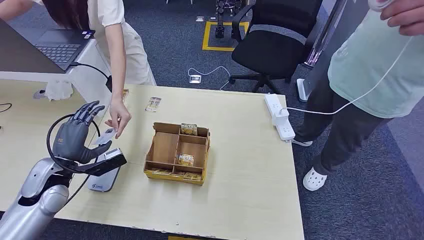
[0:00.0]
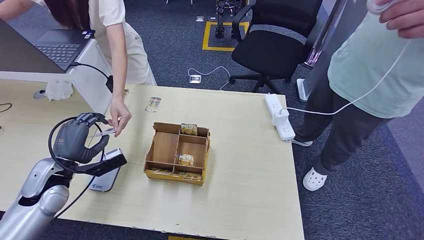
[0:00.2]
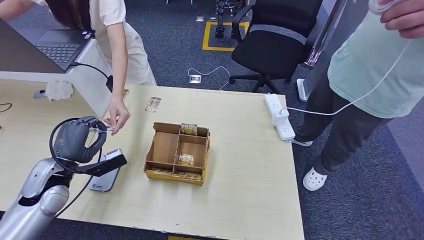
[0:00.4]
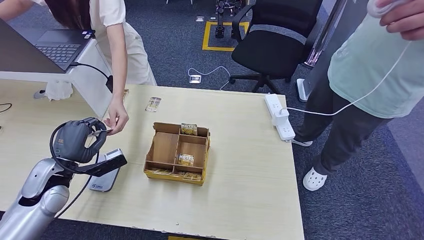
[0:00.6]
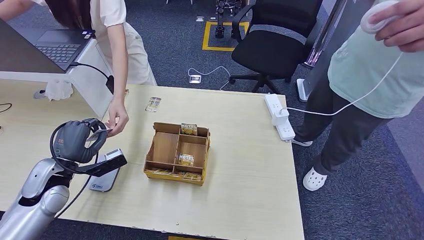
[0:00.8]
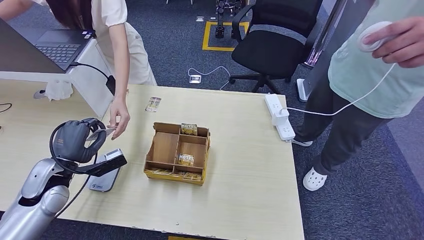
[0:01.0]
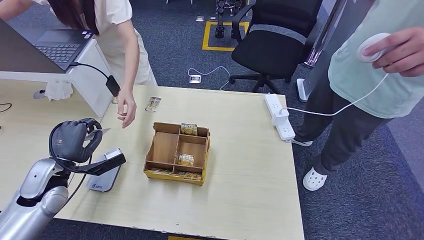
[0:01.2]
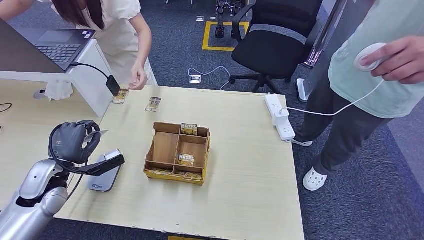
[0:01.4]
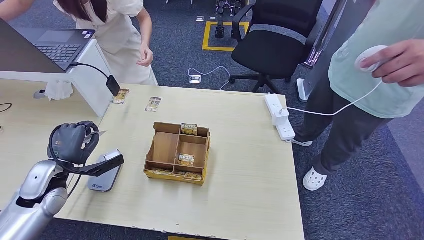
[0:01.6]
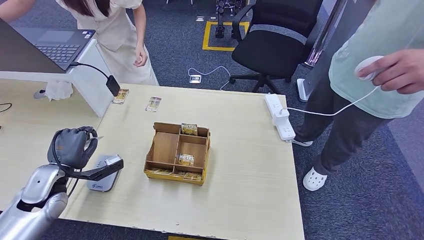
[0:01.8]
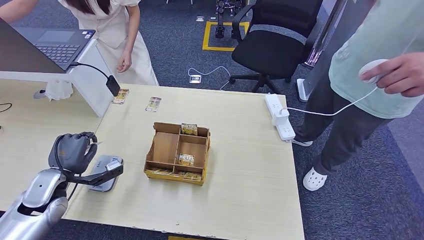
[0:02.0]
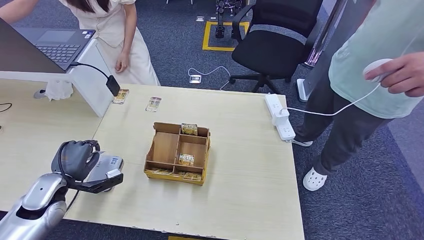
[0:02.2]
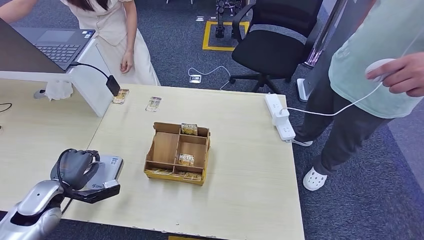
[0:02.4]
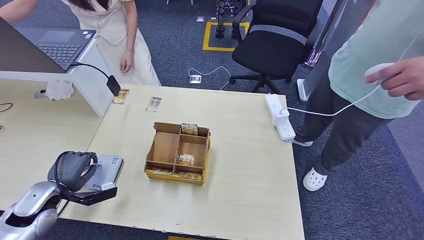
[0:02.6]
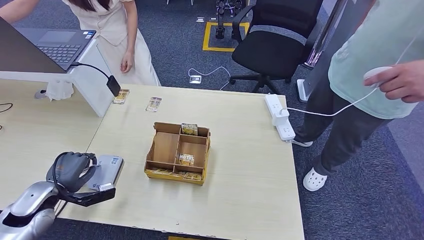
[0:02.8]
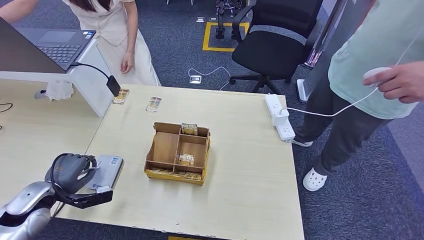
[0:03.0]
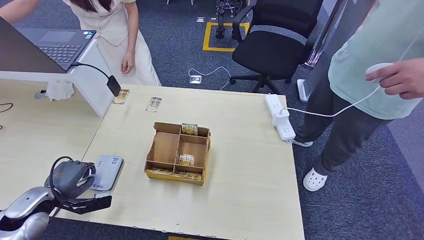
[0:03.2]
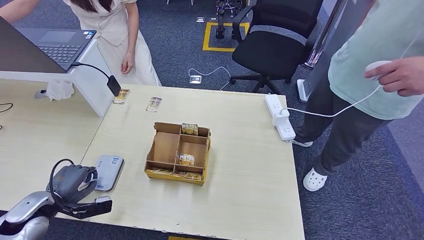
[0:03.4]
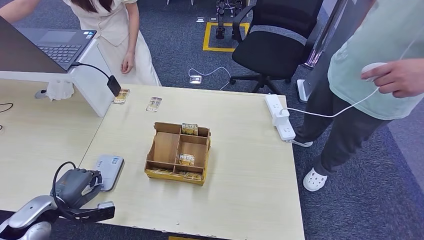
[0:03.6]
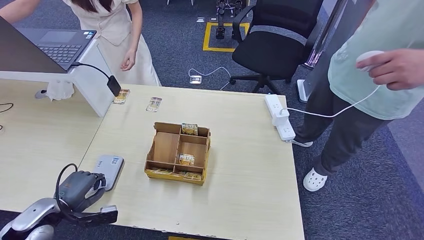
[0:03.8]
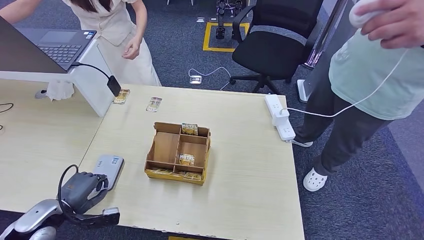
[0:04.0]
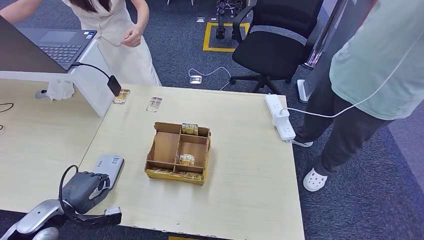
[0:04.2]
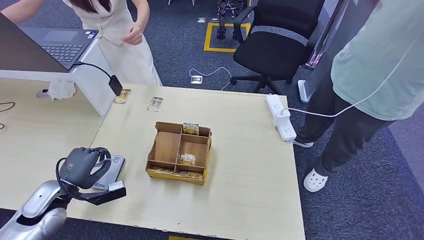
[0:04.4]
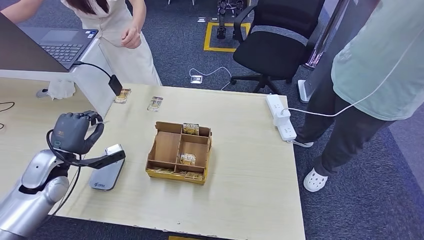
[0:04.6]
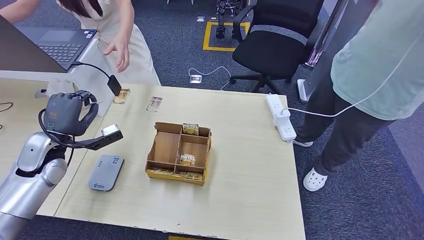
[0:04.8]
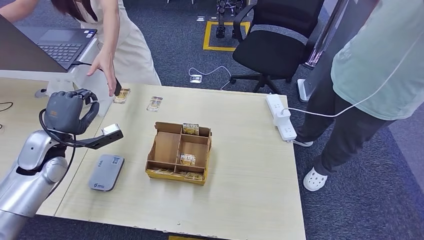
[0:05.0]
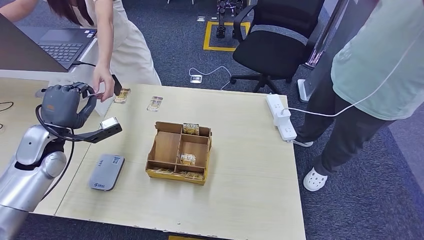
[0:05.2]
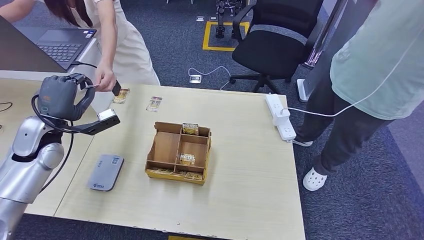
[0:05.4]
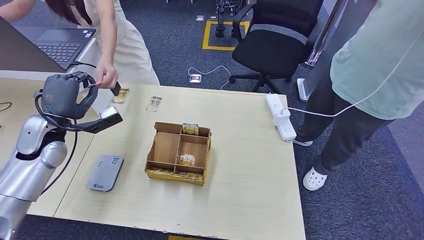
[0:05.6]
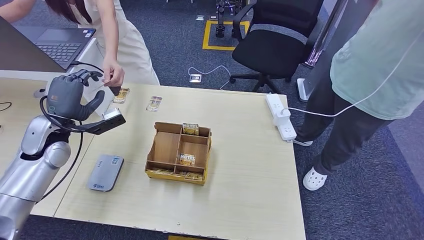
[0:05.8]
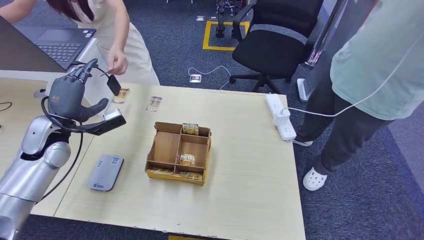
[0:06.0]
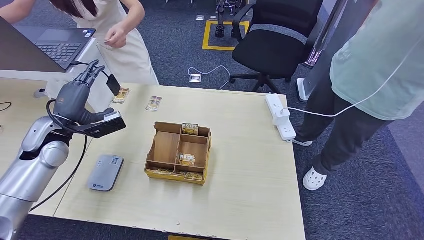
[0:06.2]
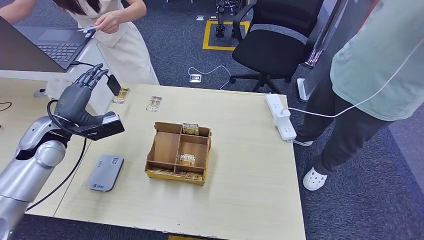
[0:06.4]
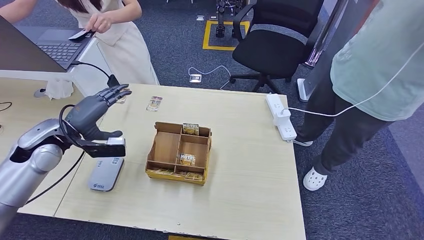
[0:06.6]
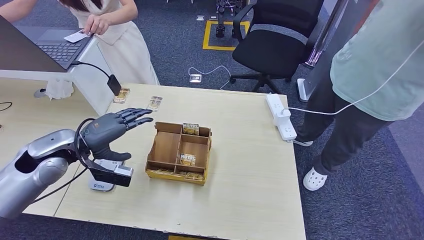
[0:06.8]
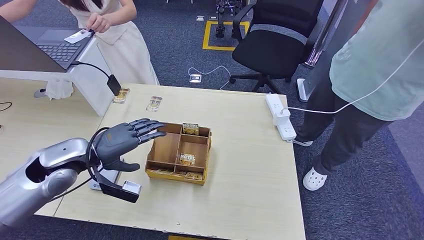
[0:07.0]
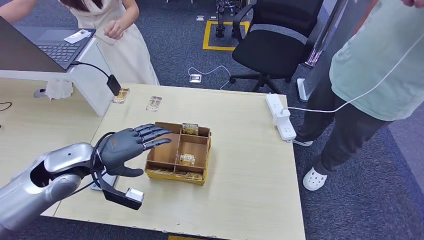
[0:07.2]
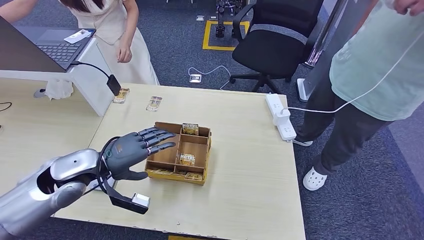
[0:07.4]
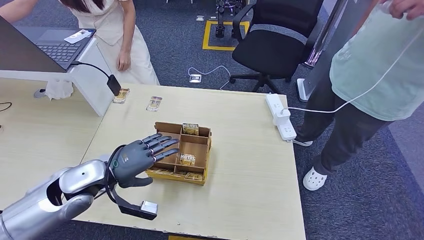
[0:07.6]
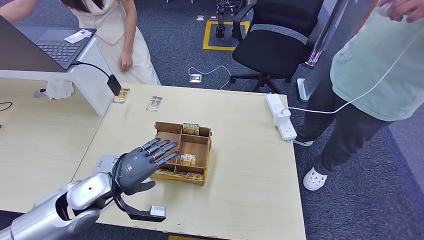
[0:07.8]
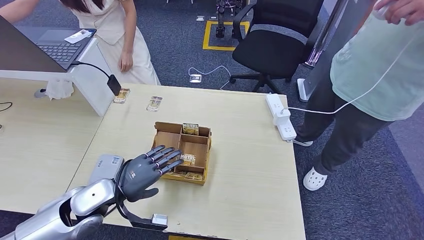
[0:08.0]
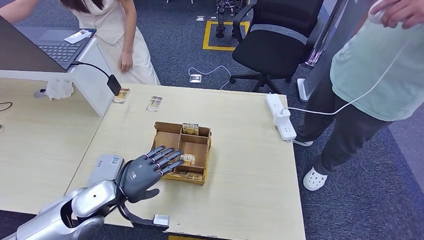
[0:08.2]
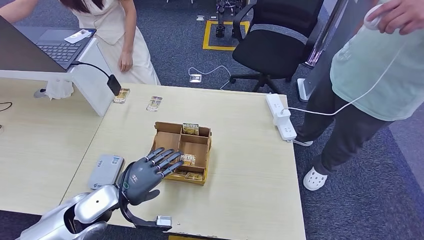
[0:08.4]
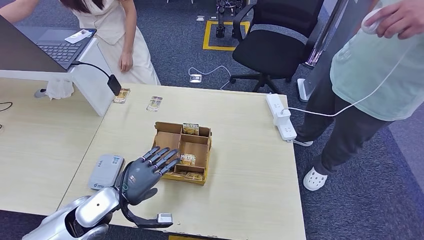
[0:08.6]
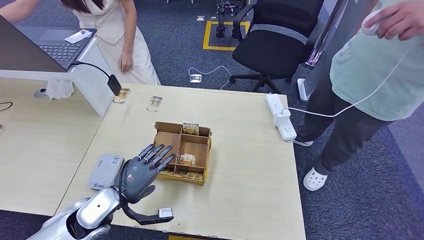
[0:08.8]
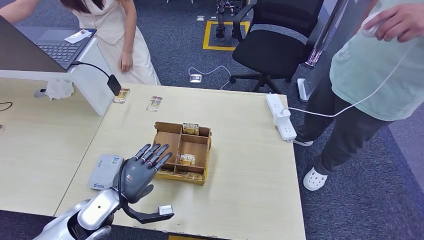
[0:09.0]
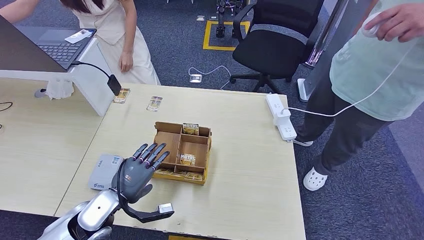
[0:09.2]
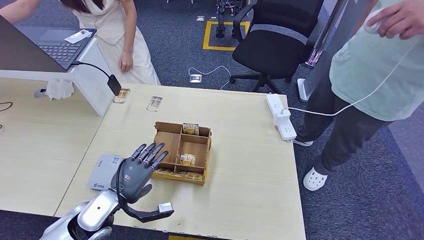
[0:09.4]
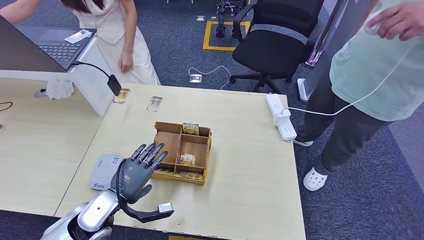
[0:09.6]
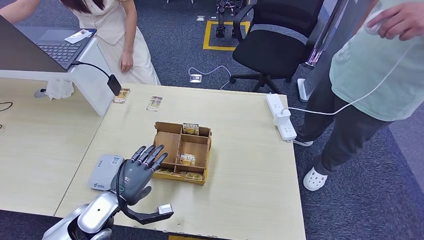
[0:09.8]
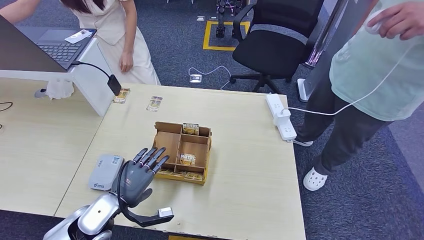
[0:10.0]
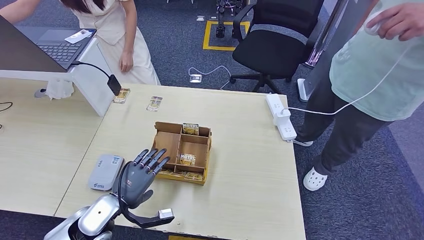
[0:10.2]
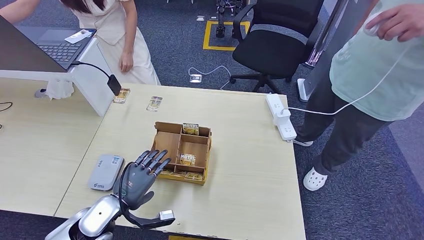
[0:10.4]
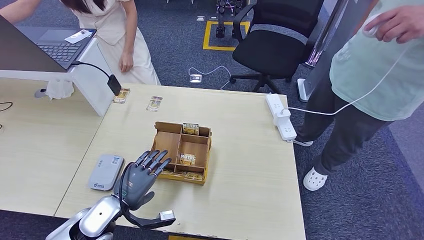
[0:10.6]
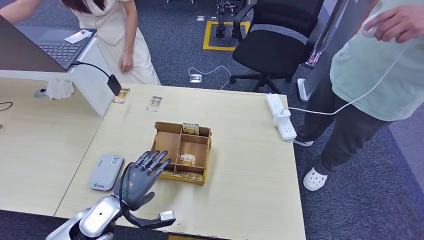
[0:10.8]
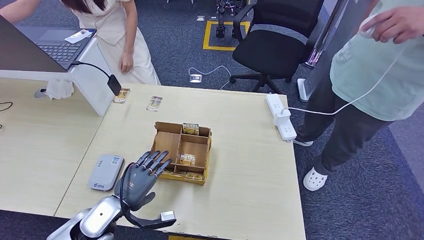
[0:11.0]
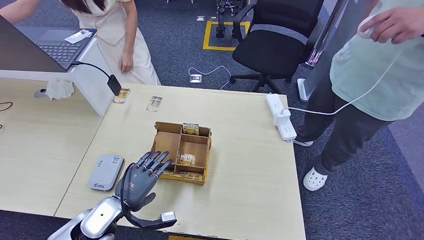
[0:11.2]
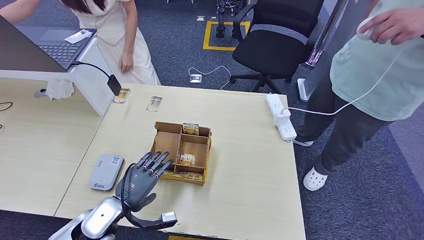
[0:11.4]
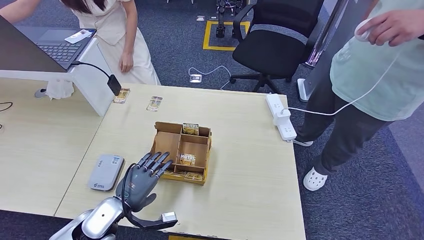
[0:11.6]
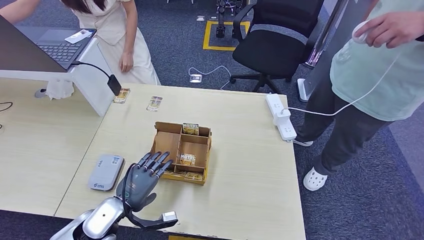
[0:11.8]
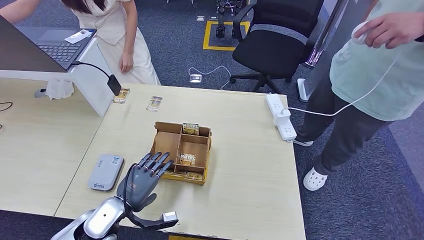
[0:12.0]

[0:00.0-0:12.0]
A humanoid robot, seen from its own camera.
Step, 0:00.0 to 0:01.0: Take the ID card from the person's hand.
Step, 0:02.0 to 0:04.2: Place the ID card on the card reader.
Step, 0:04.4 to 0:05.8: Hand the ID card to the person.
0:01.6 to 0:03.0: The left hand changes place by approximately 5 cm.
0:03.0 to 0:04.4: There are only small adjustments of the hands.
0:04.4 to 0:06.0: The left hand shifts roughly 15 cm upward and forward.
0:06.0 to 0:07.6: The left hand heads to the right and backward, covering roughly 15 cm.
0:07.6 to 0:09.0: The left hand is displaced downward by about 5 cm.
0:09.0 to 0:10.4: The hands make only small movements.
0:10.4 to 0:12.0: The two hands keep their place.

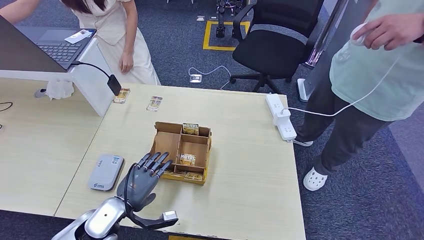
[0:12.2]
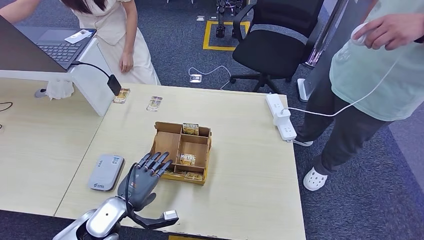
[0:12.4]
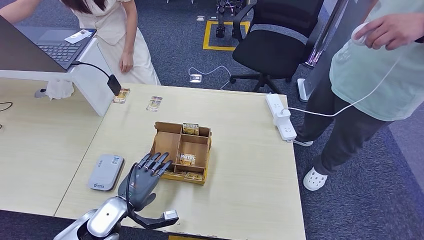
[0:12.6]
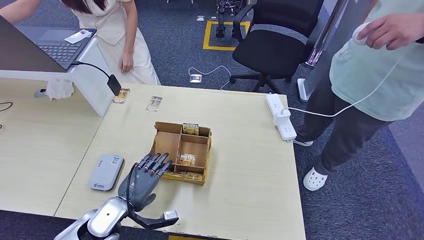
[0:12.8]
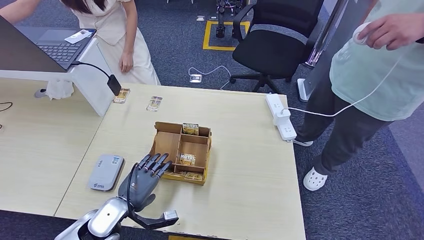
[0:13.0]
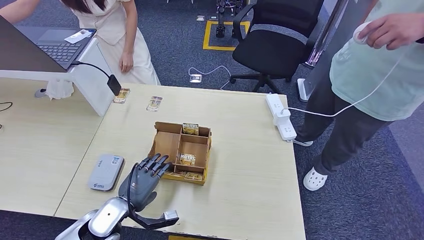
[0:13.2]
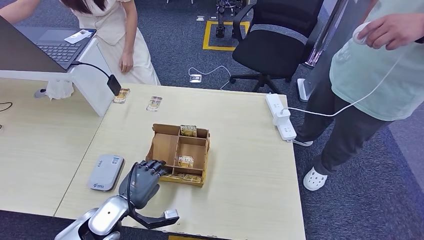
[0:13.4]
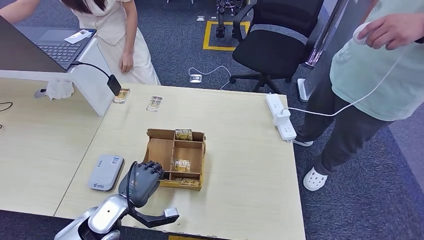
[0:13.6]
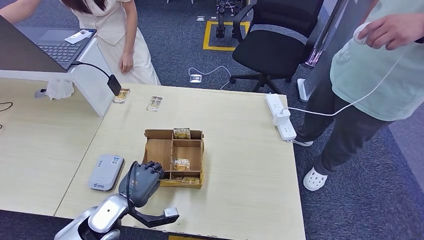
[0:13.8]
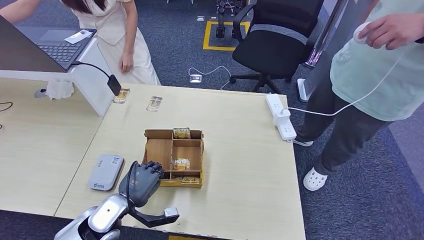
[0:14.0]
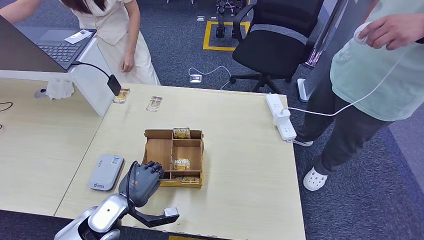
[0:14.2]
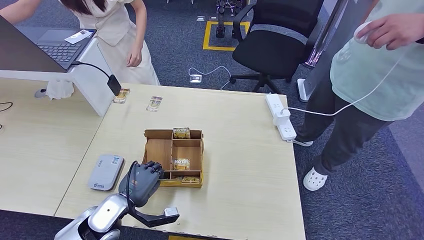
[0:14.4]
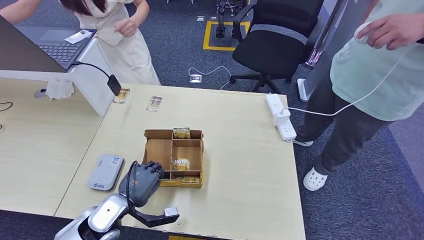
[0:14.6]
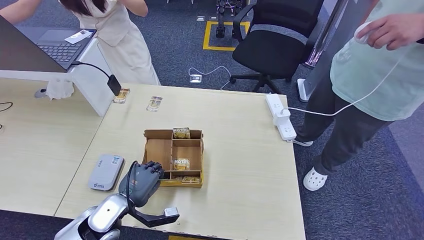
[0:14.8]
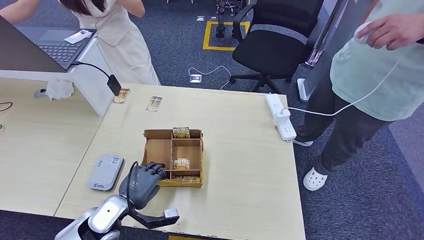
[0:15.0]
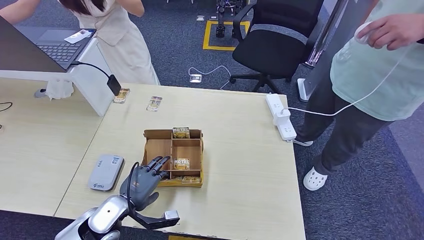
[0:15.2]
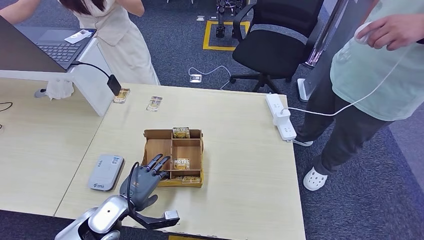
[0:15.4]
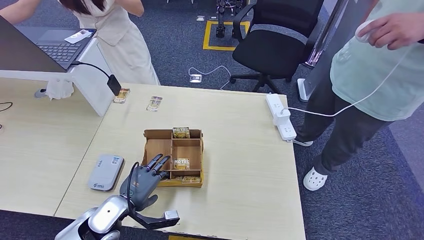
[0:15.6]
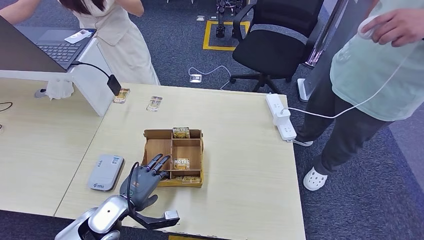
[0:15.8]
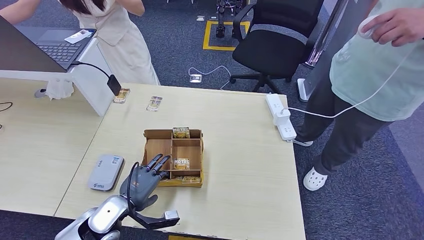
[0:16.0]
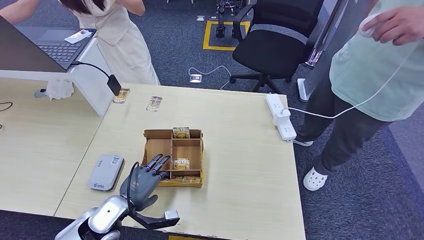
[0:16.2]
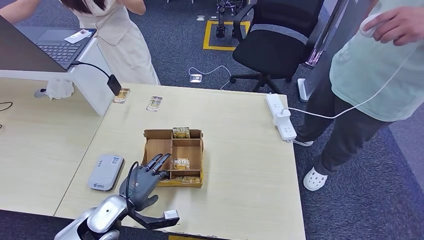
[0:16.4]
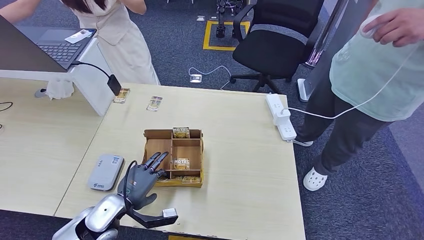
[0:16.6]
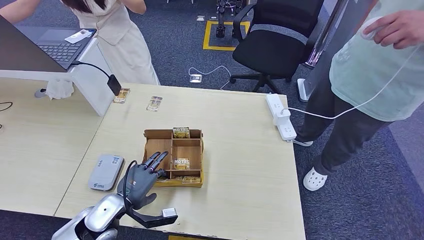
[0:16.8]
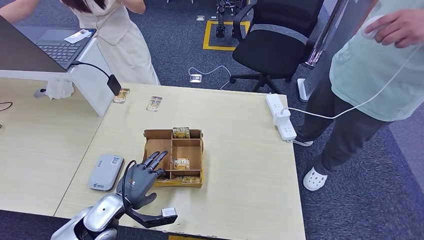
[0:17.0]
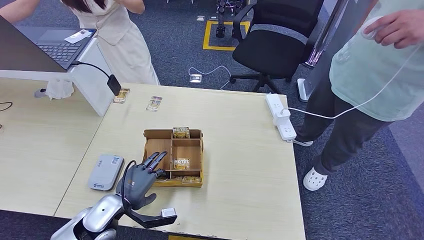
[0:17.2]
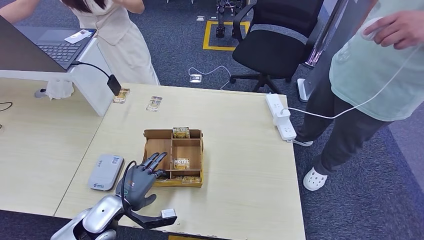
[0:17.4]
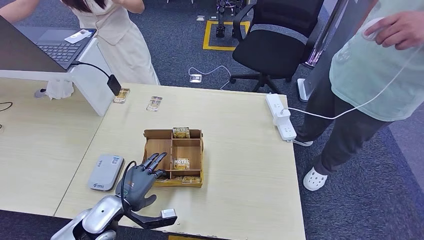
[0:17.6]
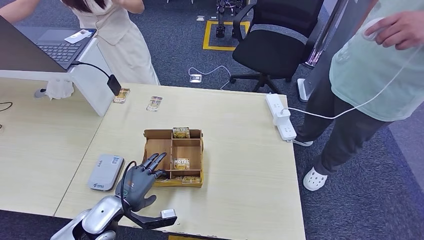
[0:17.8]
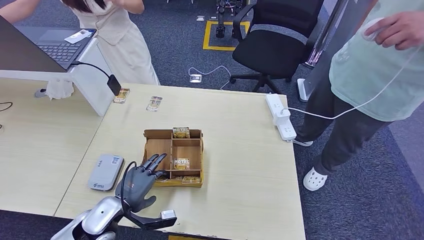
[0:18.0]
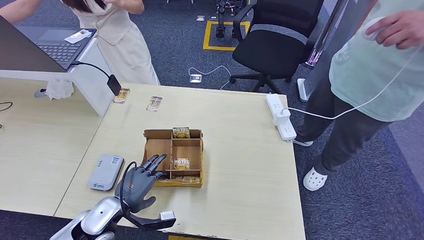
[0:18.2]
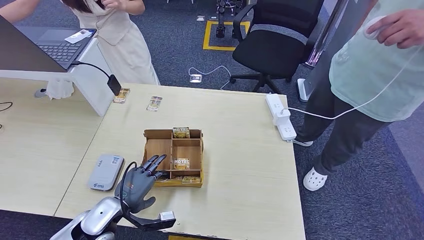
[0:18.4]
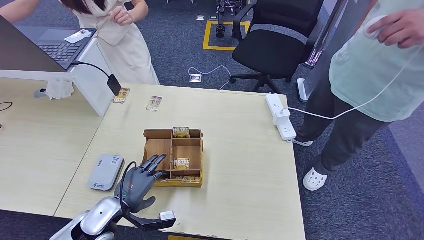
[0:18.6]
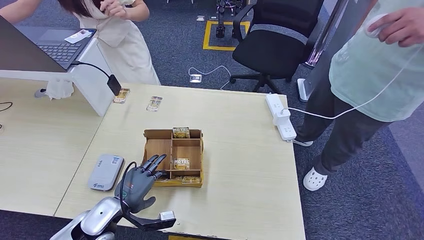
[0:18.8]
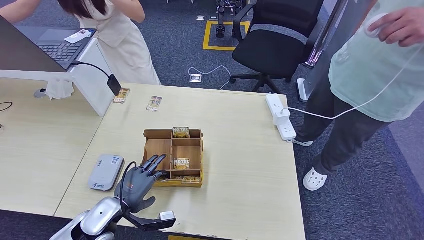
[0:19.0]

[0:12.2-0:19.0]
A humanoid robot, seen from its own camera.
0:12.2 to 0:16.2: The two hands keep their place.
0:16.2 to 0:17.6: The hands stay close to where they were, moving slightly.
0:17.6 to 0:19.0: Both hands stay put.
